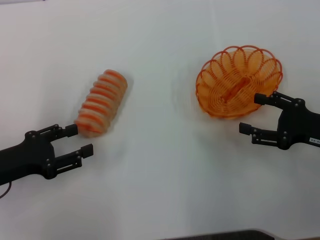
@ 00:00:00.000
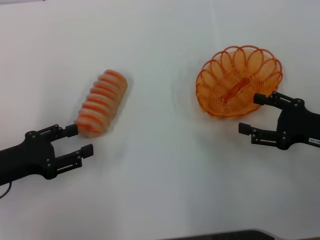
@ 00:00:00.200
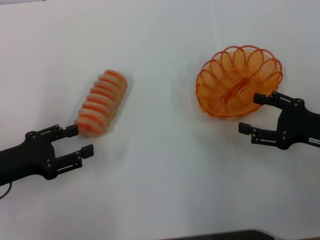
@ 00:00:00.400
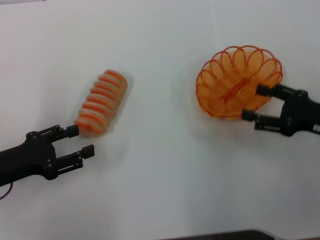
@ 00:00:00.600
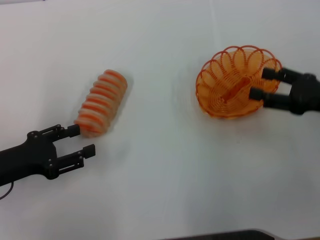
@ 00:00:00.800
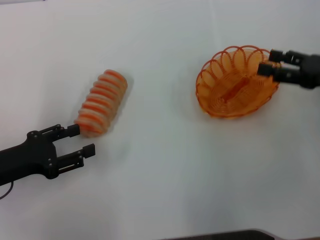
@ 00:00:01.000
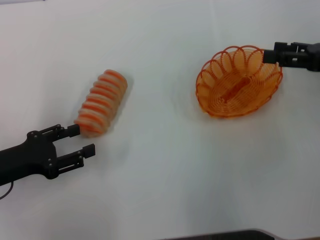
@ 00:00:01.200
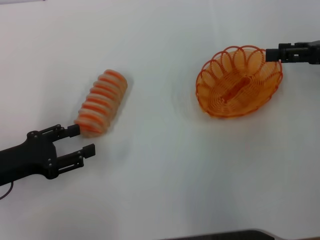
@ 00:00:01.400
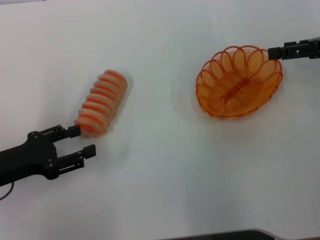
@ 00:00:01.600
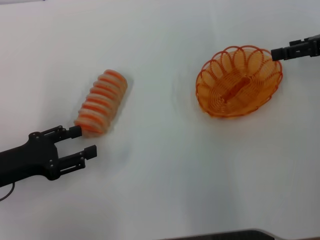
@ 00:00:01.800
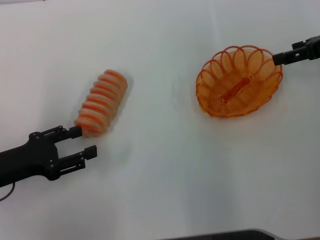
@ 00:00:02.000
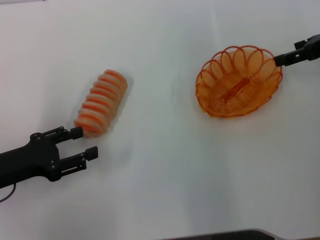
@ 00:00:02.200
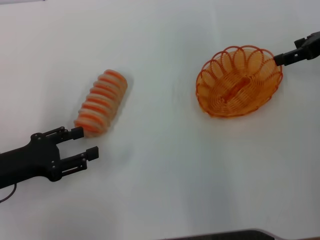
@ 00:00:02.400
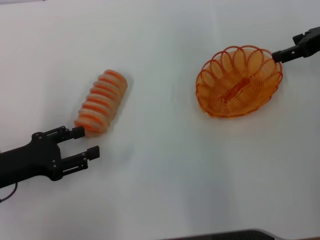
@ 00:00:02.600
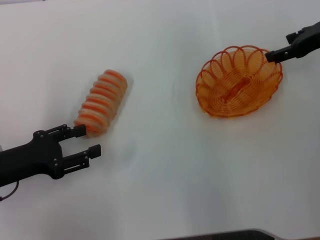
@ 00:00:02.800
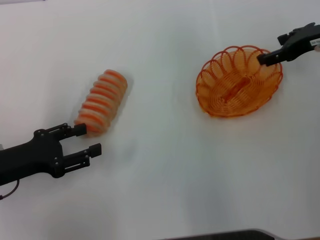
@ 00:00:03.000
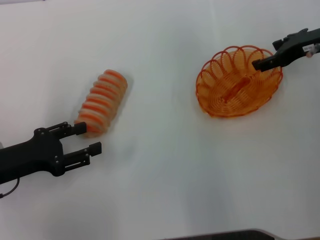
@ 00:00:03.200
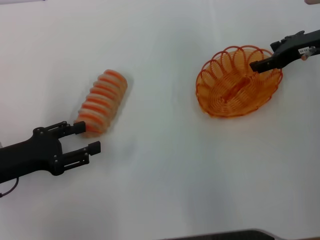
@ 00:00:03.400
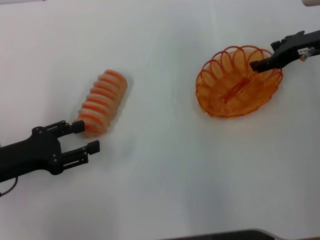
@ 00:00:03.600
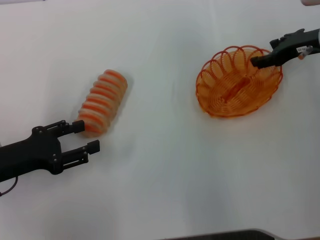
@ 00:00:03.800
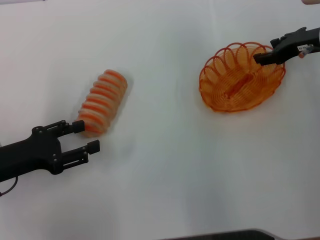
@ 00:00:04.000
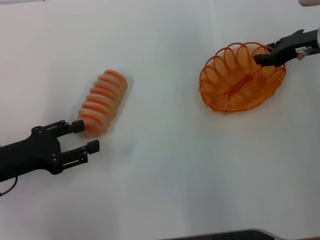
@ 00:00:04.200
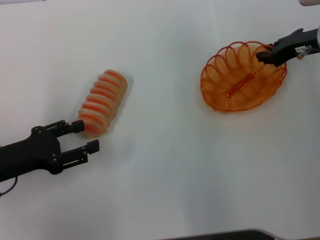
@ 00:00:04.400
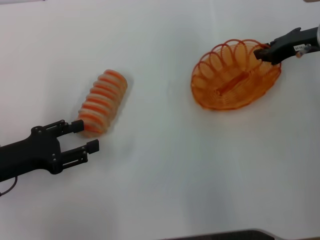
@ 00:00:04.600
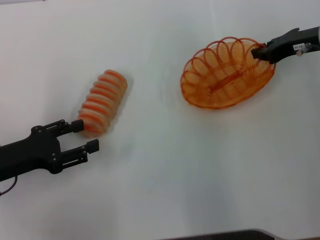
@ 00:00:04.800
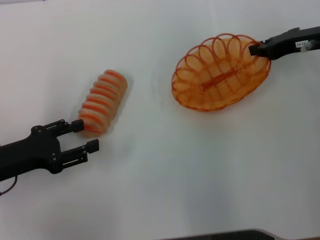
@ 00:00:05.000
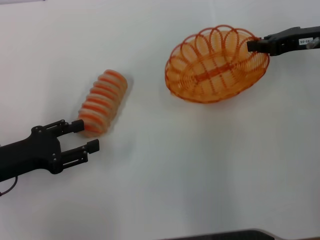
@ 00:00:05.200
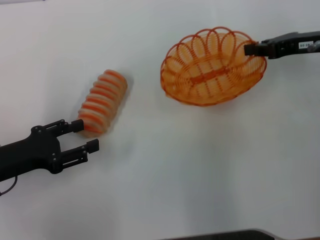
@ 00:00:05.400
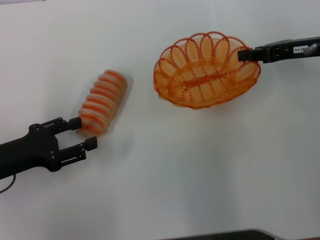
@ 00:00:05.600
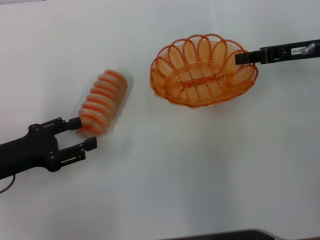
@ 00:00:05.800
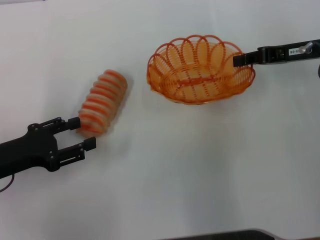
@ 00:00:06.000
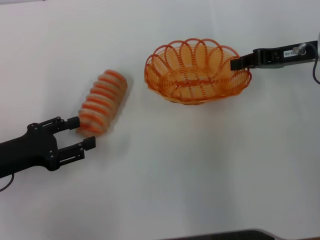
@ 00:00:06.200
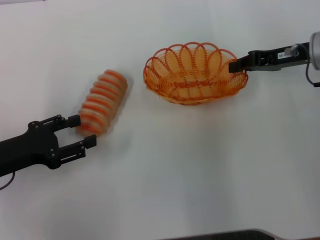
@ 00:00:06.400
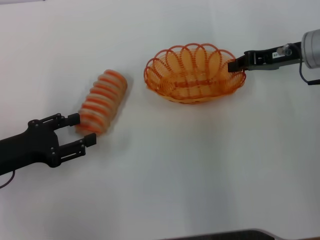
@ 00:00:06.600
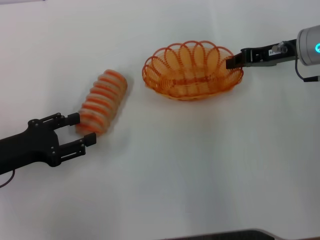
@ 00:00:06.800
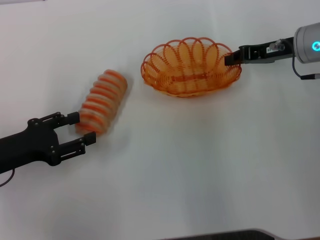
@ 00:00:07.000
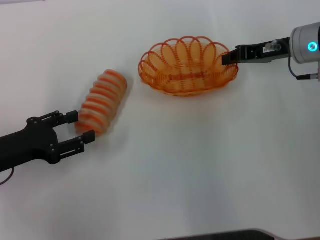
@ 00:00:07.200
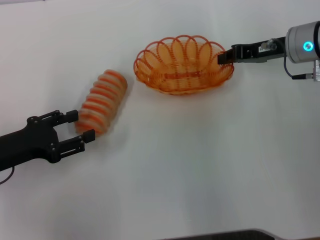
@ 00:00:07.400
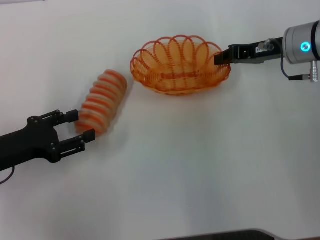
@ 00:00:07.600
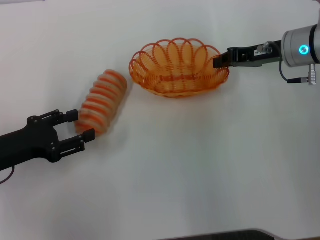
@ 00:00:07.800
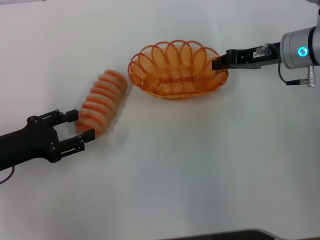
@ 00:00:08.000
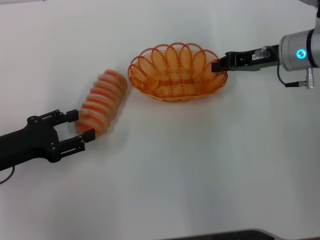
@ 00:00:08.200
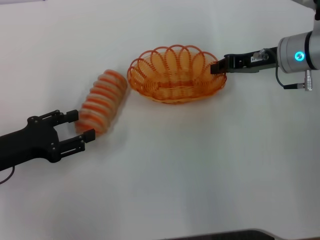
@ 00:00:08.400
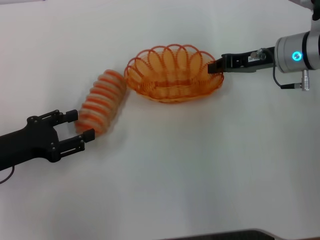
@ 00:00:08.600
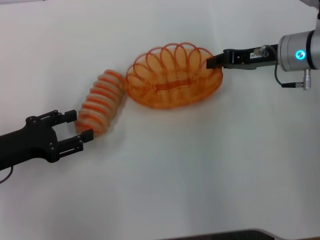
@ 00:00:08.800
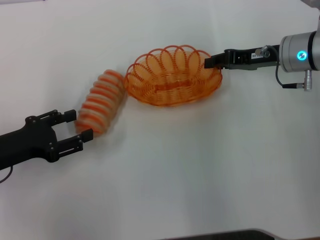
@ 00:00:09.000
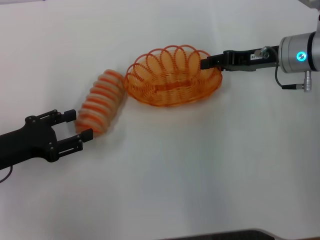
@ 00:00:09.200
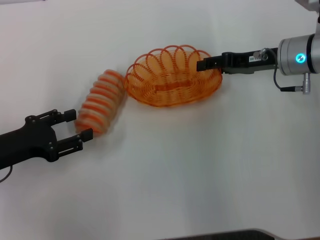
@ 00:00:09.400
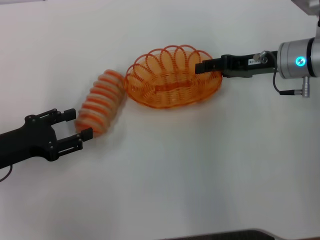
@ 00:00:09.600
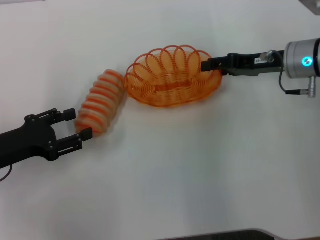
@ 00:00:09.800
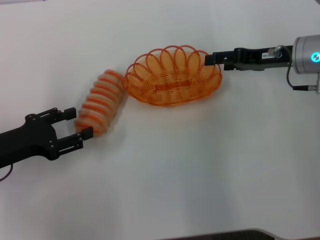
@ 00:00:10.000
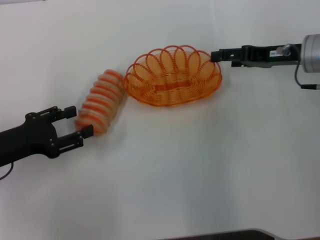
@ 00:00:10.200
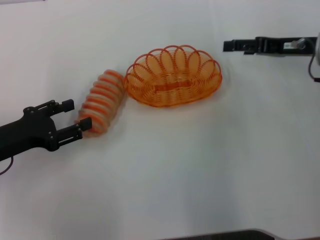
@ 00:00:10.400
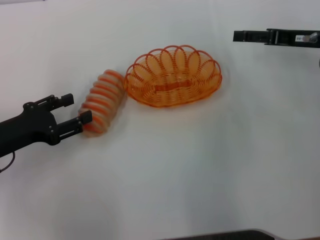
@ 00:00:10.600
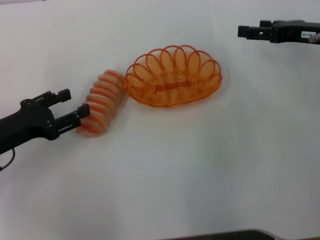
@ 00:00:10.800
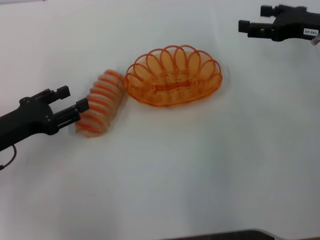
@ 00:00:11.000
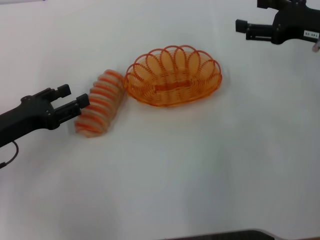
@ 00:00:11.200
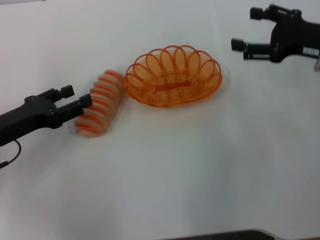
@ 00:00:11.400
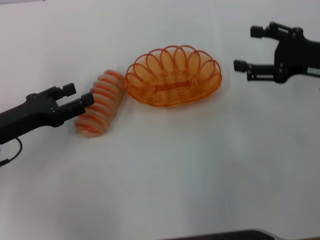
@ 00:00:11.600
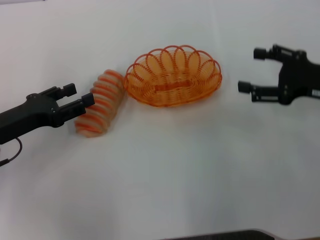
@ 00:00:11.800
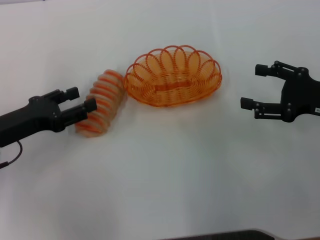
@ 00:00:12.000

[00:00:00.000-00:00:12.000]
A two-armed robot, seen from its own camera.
Step, 00:00:00.000 to 00:00:04.600: Pick up the basket with the right gripper.
Step, 00:00:04.800 to 00:00:10.000: Place the basket in the center of view with the right gripper.
00:00:00.000 to 00:00:01.600: The right gripper is displaced upward and forward by approximately 15 cm.
00:00:01.600 to 00:00:03.000: The right gripper goes some 5 cm forward.
00:00:03.000 to 00:00:04.400: The right gripper closes up.
00:00:04.400 to 00:00:06.000: The right gripper closes its fingers.
00:00:06.000 to 00:00:07.600: The right gripper changes place by some 5 cm.
00:00:07.600 to 00:00:09.000: There are only small adjustments of the grippers.
00:00:09.000 to 00:00:10.400: The right gripper moves roughly 5 cm, and opens its fingers.
00:00:10.400 to 00:00:12.000: The right gripper shifts roughly 10 cm backward.

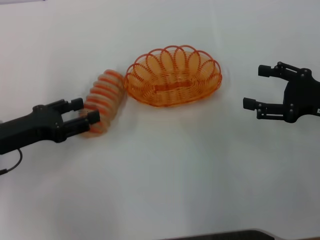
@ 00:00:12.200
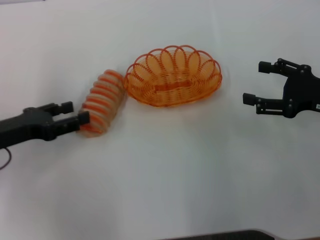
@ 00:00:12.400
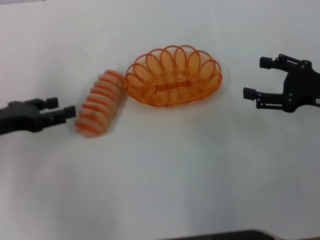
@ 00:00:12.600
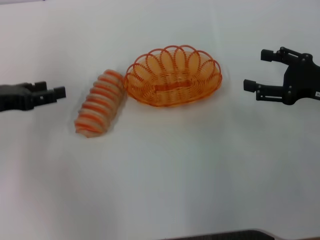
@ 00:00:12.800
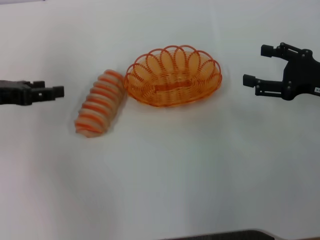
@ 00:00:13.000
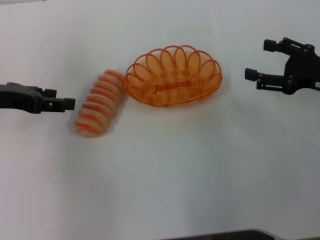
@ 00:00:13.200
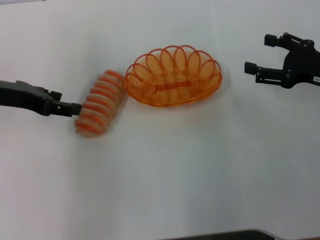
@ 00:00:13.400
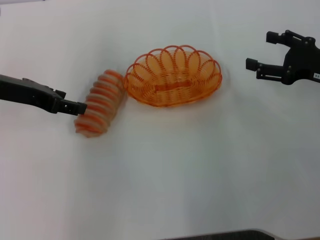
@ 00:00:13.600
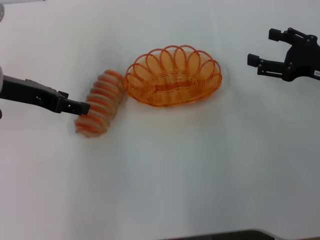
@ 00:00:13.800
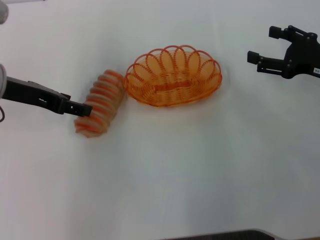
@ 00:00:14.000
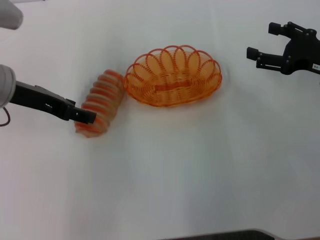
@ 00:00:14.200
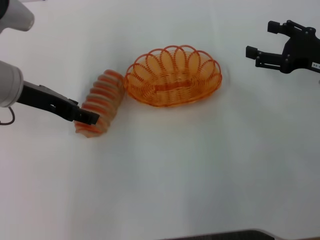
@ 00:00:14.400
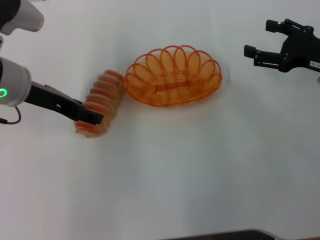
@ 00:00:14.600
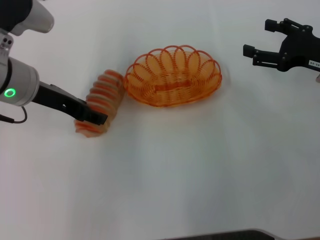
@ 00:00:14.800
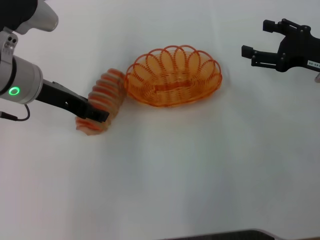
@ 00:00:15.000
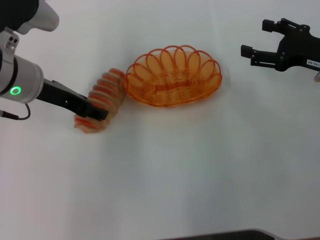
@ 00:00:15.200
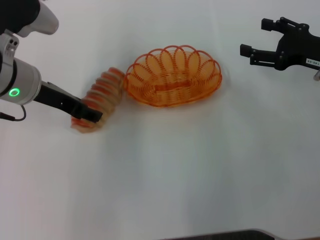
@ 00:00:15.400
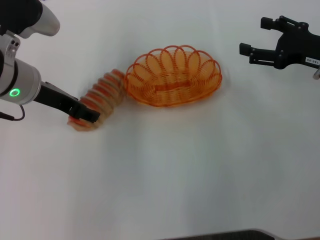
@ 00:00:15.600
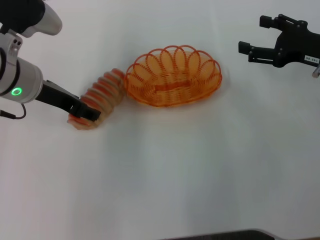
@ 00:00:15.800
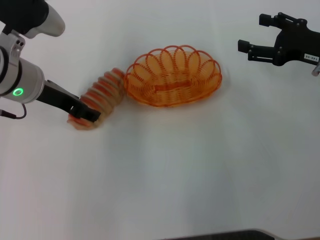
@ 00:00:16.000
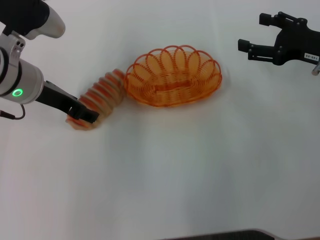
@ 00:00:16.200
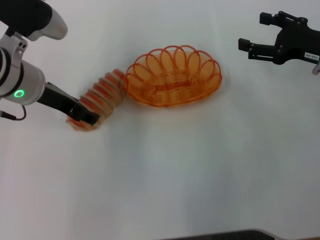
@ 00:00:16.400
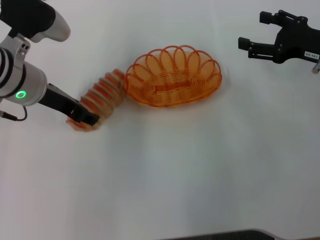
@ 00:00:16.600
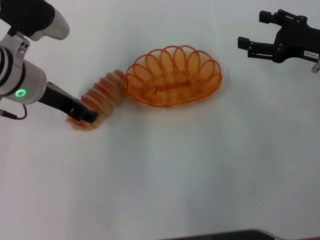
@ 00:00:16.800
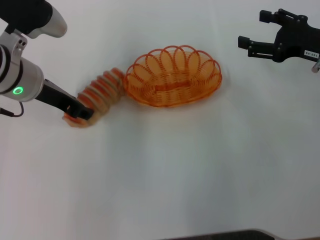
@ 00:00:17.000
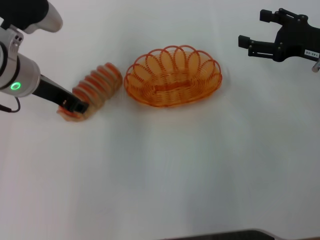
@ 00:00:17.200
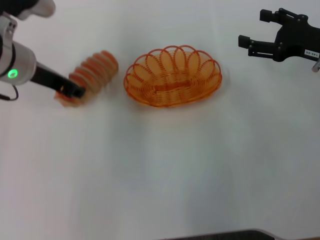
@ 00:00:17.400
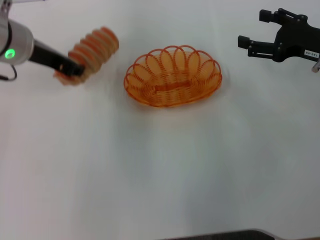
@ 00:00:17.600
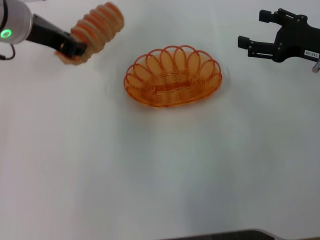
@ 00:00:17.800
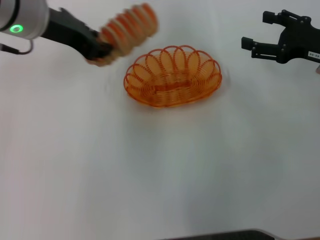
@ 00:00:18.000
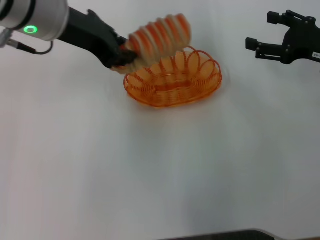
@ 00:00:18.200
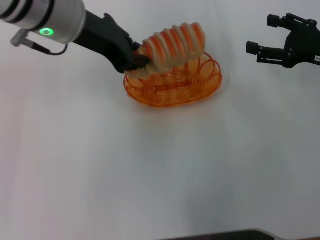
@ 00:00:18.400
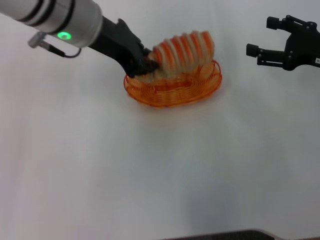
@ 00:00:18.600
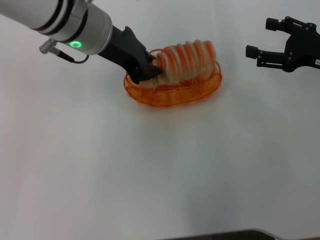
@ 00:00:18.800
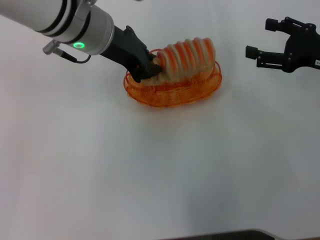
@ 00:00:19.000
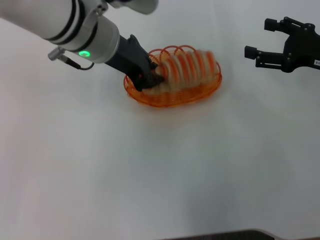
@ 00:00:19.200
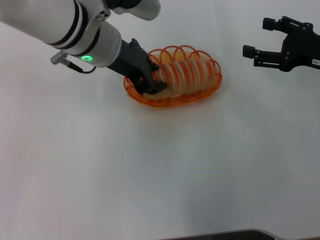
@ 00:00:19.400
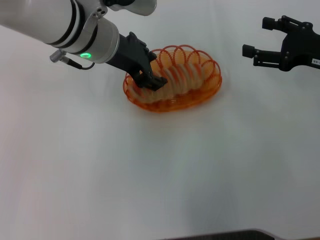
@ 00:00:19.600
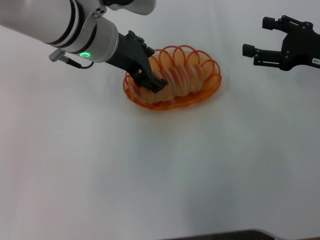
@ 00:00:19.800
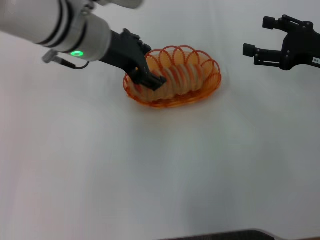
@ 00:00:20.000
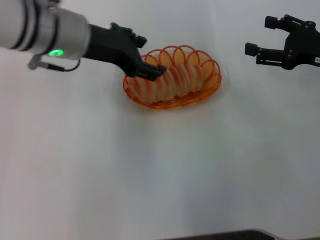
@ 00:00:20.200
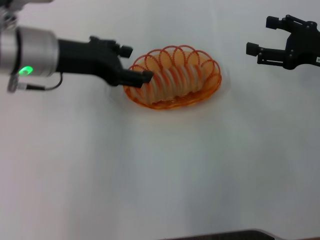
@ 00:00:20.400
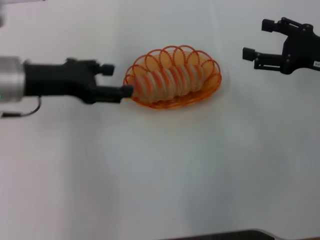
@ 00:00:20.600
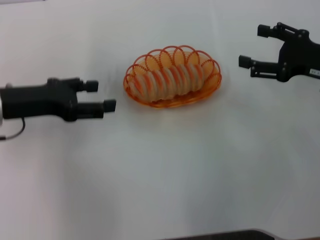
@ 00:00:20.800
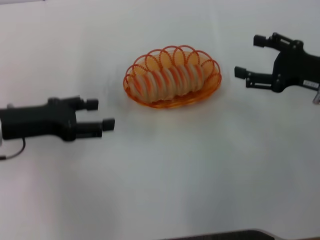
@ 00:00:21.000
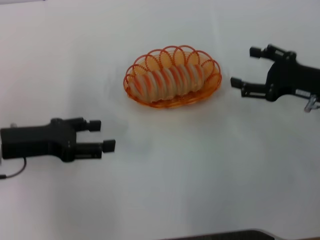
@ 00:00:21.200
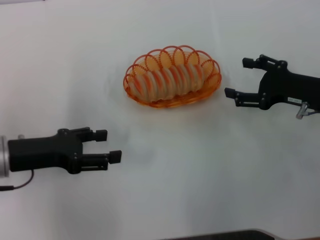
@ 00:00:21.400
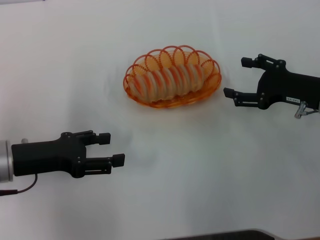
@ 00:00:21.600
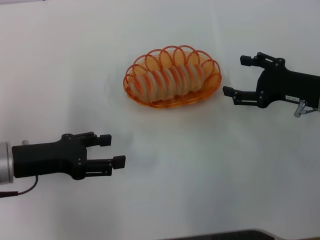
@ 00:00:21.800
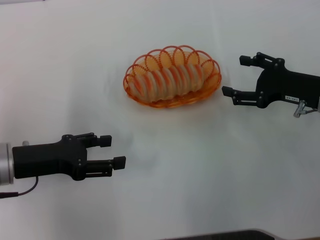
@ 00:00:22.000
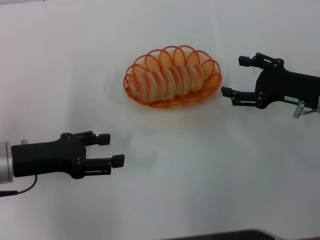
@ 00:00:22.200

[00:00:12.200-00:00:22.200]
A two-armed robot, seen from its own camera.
Step, 00:00:12.200 to 00:00:17.000: Pick up the long bread with the left gripper.
Step, 00:00:17.400 to 00:00:20.000: Place the long bread into the basket with the left gripper.
00:00:12.200 to 00:00:13.600: The left gripper is displaced upward and forward by some 10 cm.
00:00:13.600 to 00:00:15.000: The left gripper is displaced to the right by roughly 5 cm.
00:00:15.000 to 00:00:16.400: There are only small adjustments of the grippers.
00:00:16.400 to 00:00:18.000: The left gripper is displaced upward by some 10 cm, and closes.
00:00:18.000 to 00:00:19.400: The left gripper shifts roughly 5 cm to the right.
00:00:19.400 to 00:00:20.800: The left gripper heads to the left, covering about 15 cm, and opens its fingers.
00:00:20.800 to 00:00:22.200: The left gripper goes roughly 5 cm downward and backward.
